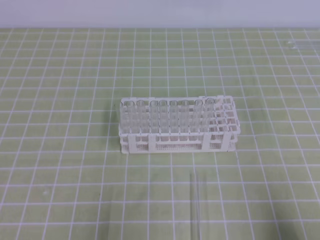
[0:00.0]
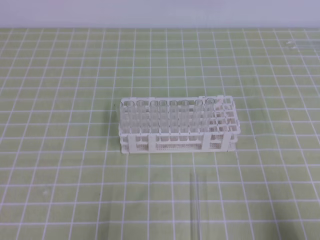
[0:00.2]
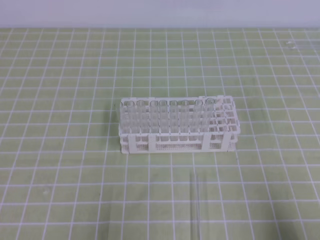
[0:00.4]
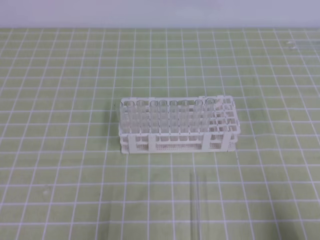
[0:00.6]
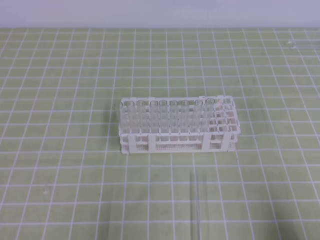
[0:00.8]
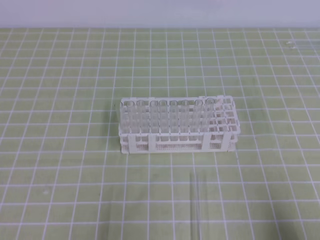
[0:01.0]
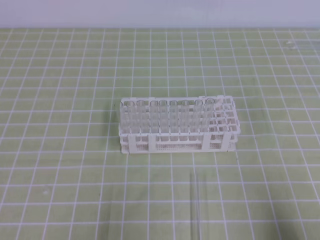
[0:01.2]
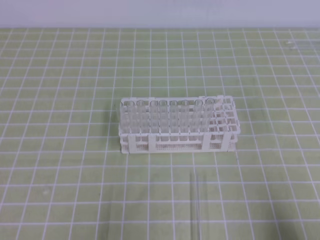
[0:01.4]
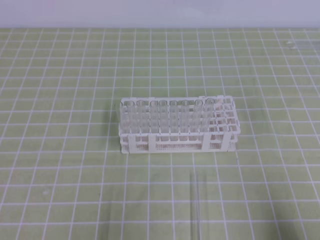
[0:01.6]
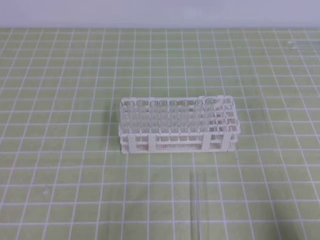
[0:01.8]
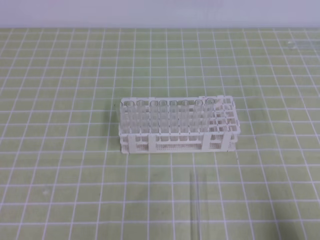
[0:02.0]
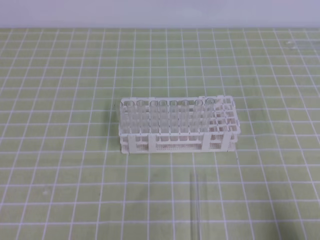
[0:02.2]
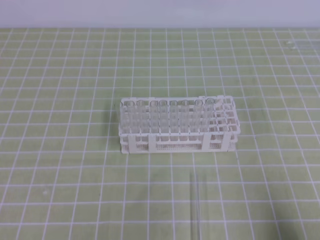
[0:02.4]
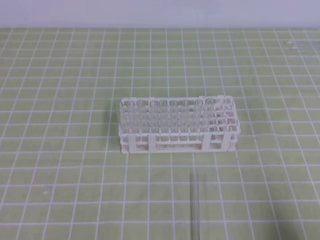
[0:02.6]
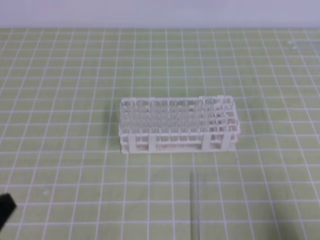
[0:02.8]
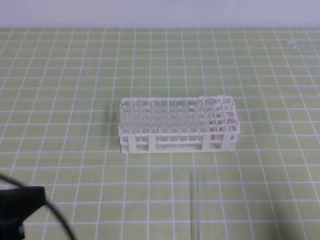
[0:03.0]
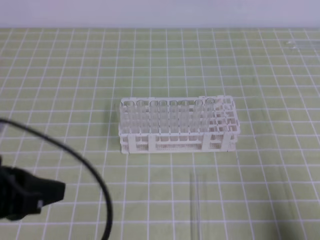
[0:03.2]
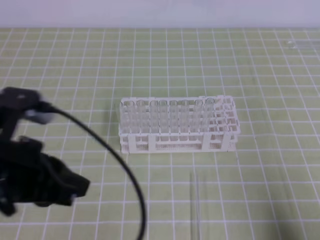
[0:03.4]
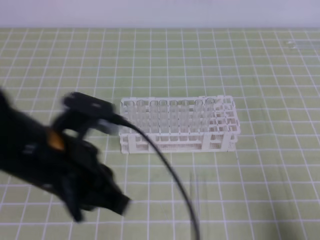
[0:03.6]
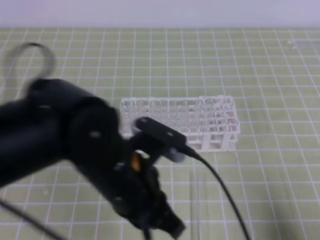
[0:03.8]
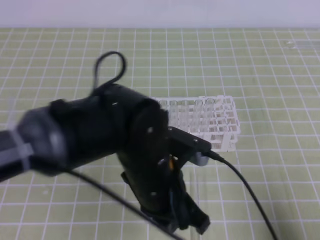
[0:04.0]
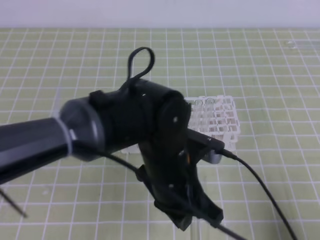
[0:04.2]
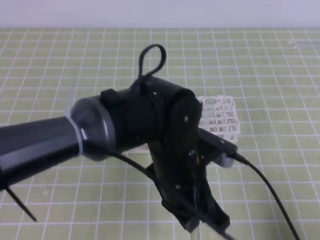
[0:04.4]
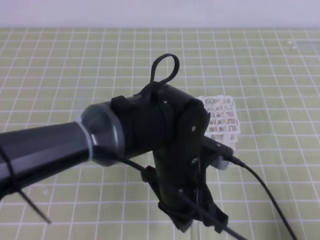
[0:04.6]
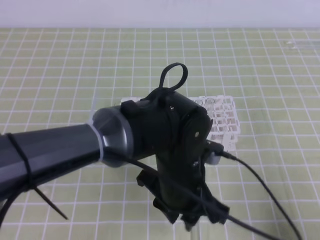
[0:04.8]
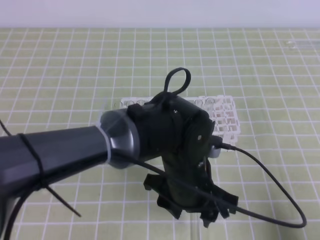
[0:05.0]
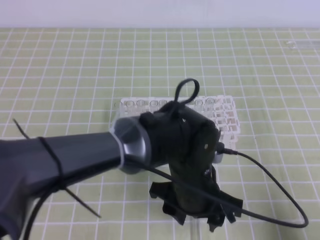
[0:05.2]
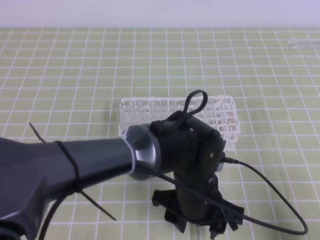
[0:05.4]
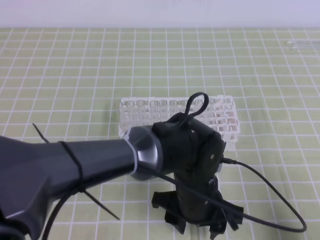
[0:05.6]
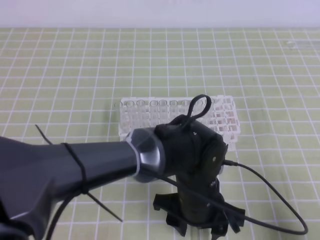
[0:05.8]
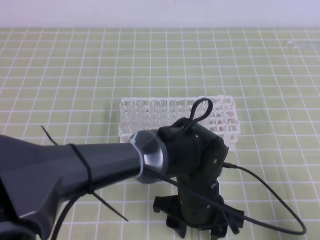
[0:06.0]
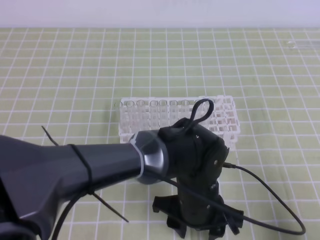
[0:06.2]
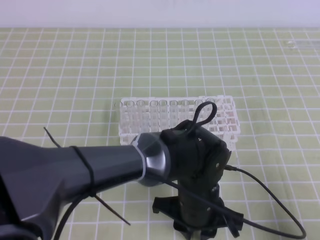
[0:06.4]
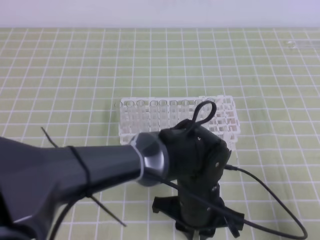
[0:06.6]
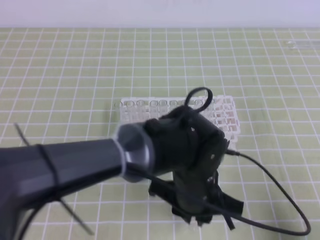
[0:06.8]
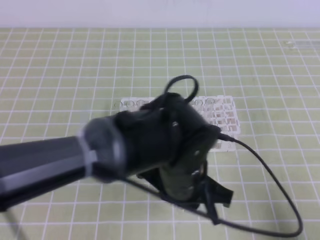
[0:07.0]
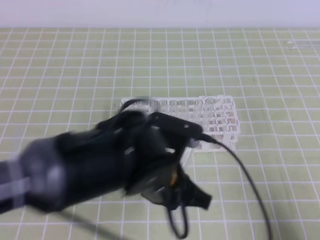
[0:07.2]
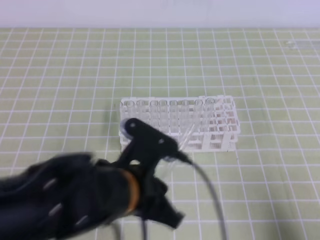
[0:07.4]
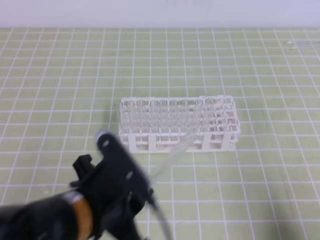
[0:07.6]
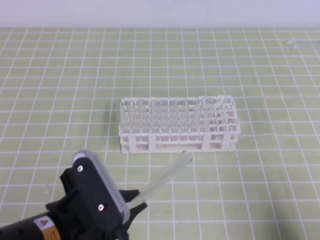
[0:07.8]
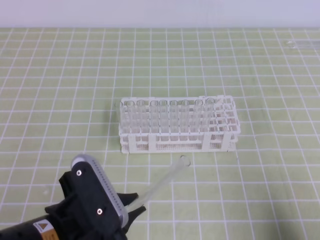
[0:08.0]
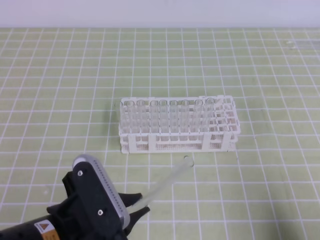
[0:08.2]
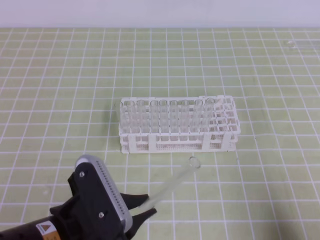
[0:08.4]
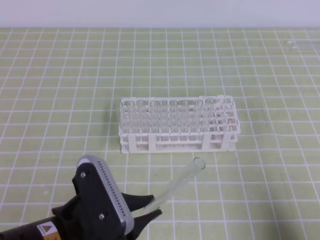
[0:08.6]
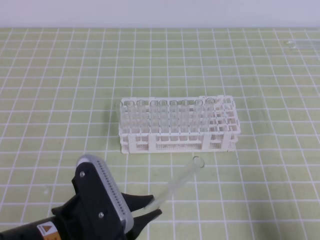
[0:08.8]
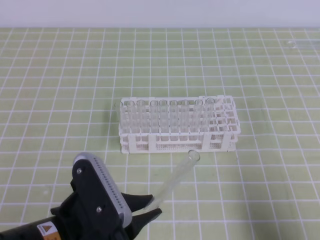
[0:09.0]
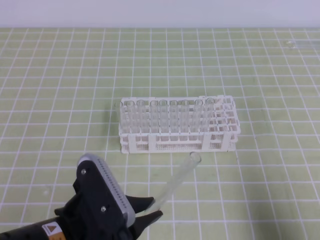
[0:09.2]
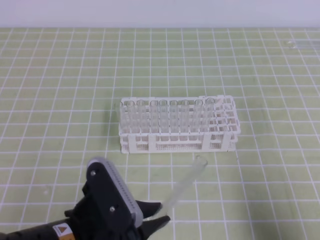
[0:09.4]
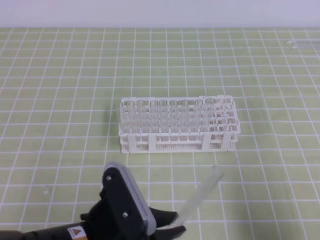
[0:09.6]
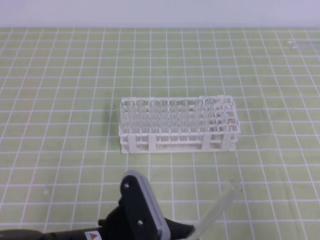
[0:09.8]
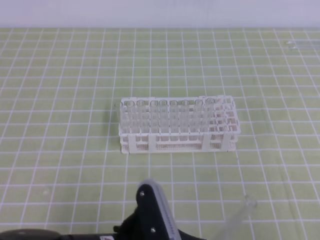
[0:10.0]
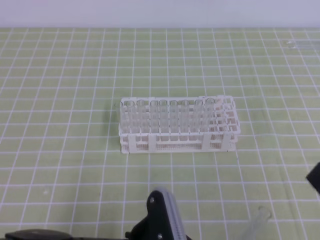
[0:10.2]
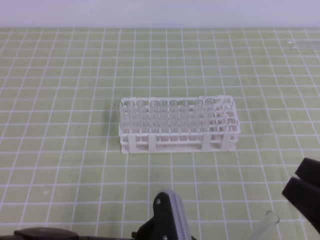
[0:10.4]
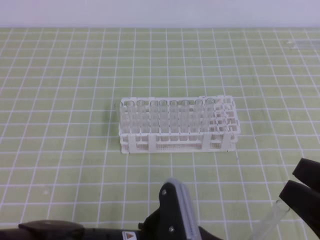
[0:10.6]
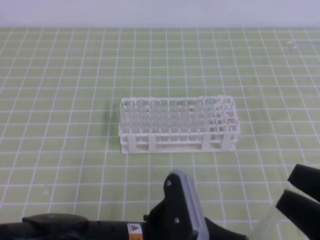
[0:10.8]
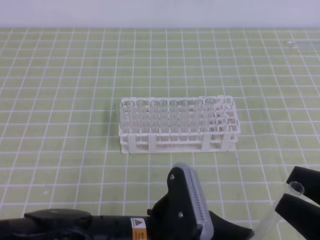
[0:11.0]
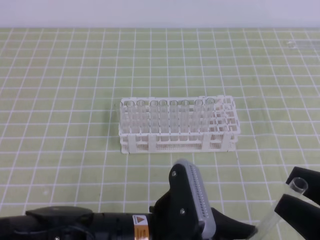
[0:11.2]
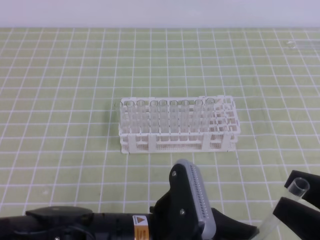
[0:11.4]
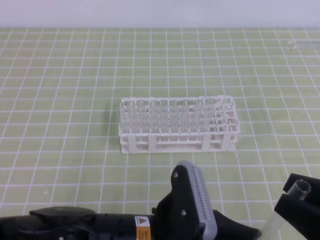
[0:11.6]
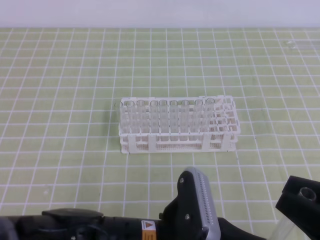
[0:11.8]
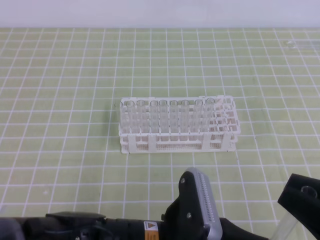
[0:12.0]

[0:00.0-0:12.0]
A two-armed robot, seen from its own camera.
0:01.6 to 0:03.0: The left gripper is displaced upward by approximately 10 cm.
0:03.0 to 0:04.4: The left gripper is displaced to the right and forward by about 25 cm.
0:04.4 to 0:06.0: The left gripper moves downward, approximately 10 cm, and opens.
0:06.0 to 0:07.6: The left gripper heads to the left, upward and backward, covering about 15 cm, and closes its fingers.
0:09.0 to 0:10.4: The right gripper goes approximately 10 cm upward and to the left, and opens its fingers. Meanwhile the left gripper is displaced to the right by about 5 cm.
0:10.4 to 0:12.0: The right gripper closes up.

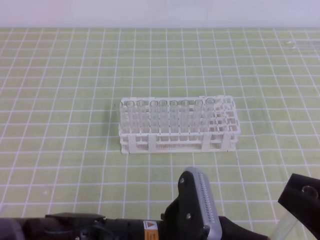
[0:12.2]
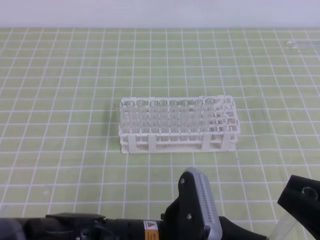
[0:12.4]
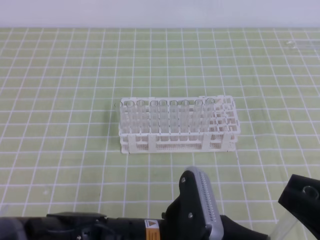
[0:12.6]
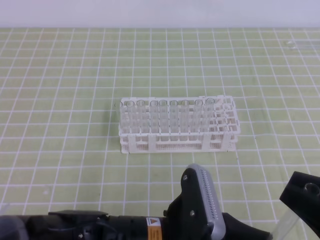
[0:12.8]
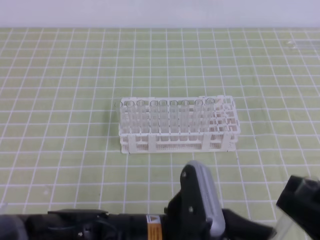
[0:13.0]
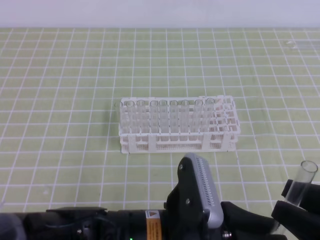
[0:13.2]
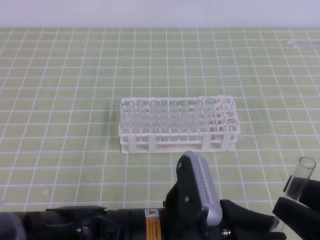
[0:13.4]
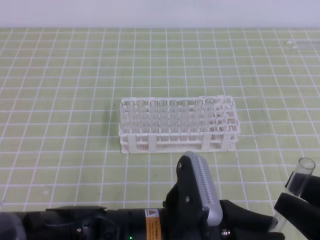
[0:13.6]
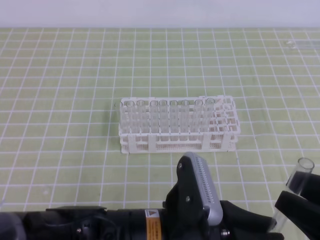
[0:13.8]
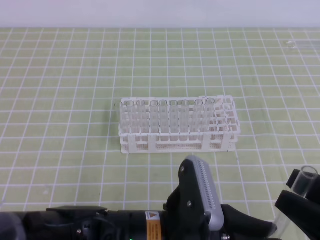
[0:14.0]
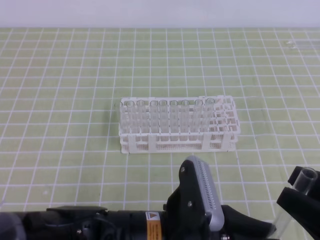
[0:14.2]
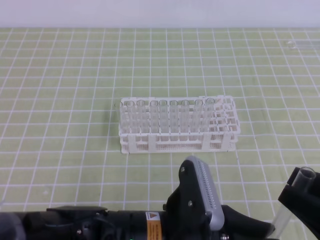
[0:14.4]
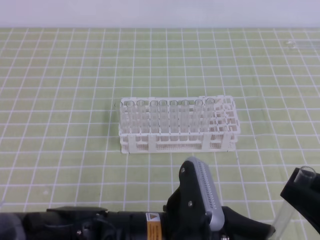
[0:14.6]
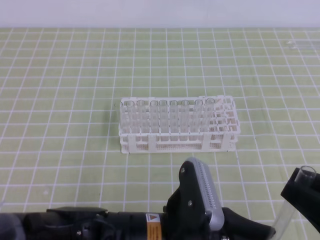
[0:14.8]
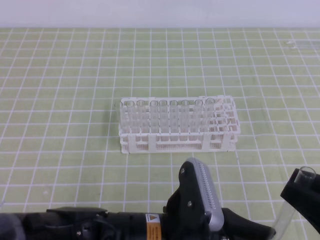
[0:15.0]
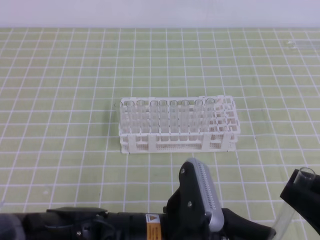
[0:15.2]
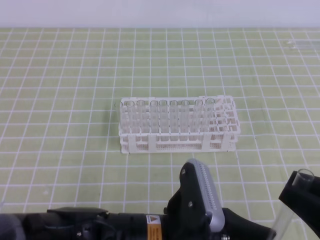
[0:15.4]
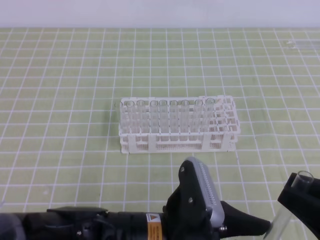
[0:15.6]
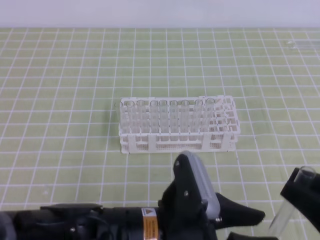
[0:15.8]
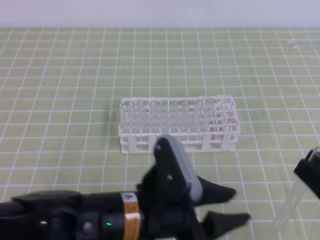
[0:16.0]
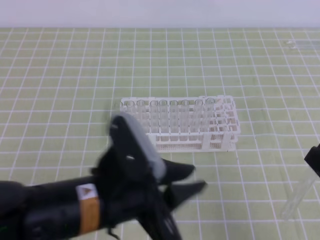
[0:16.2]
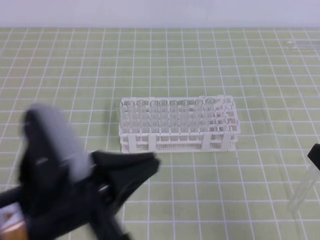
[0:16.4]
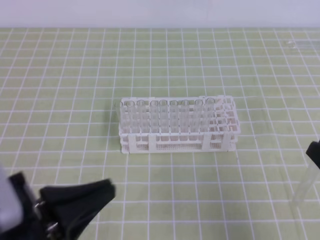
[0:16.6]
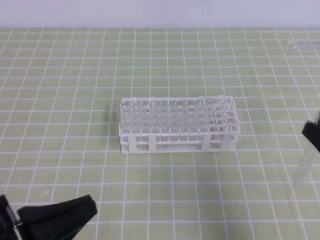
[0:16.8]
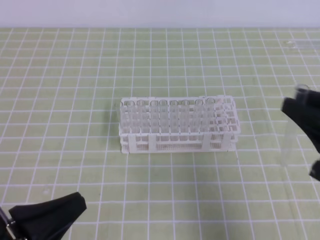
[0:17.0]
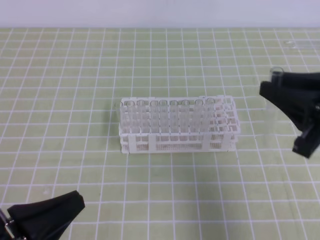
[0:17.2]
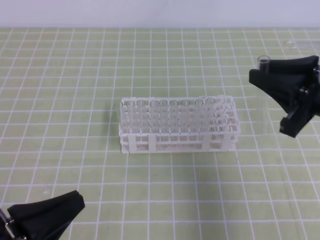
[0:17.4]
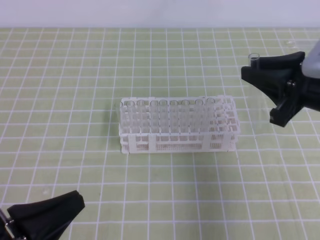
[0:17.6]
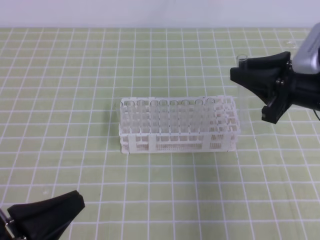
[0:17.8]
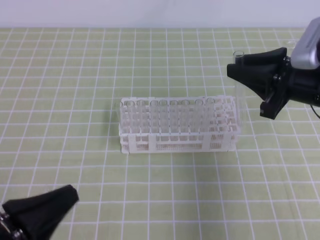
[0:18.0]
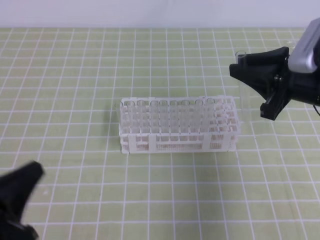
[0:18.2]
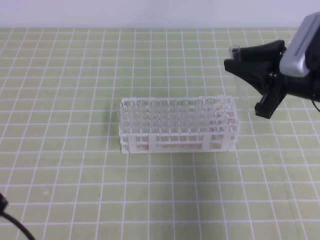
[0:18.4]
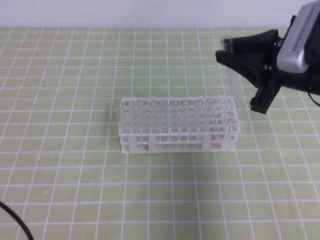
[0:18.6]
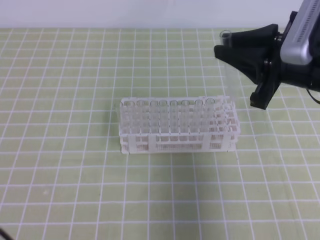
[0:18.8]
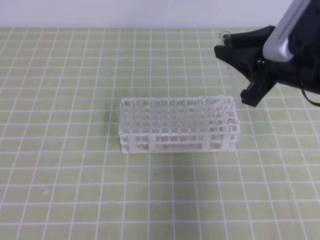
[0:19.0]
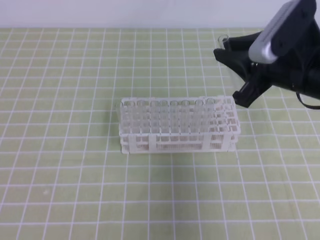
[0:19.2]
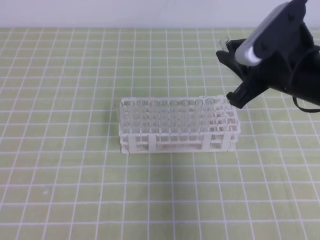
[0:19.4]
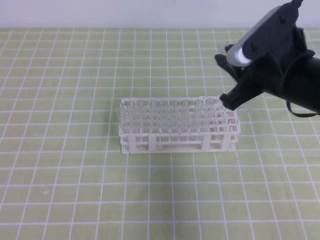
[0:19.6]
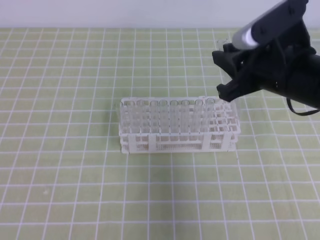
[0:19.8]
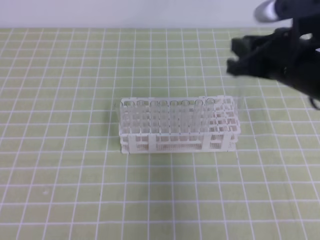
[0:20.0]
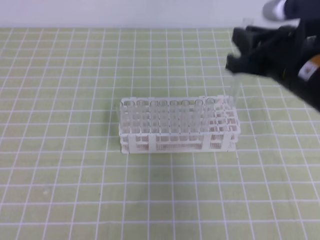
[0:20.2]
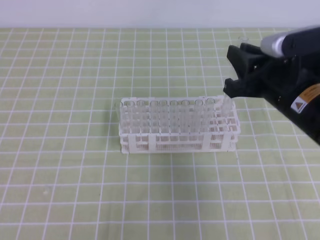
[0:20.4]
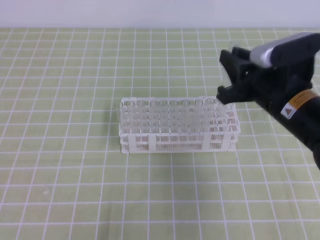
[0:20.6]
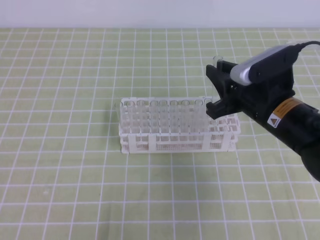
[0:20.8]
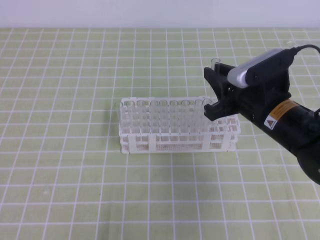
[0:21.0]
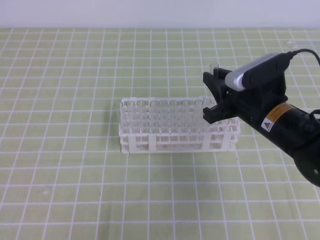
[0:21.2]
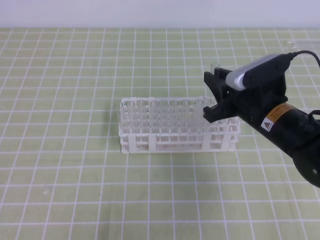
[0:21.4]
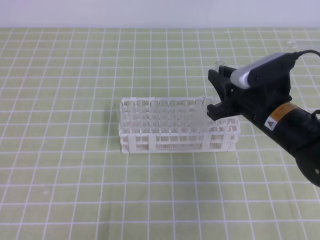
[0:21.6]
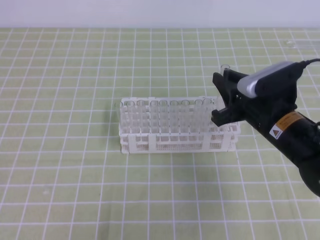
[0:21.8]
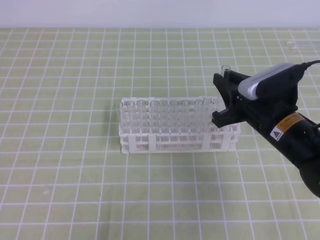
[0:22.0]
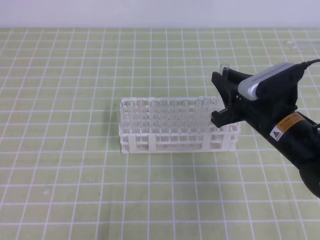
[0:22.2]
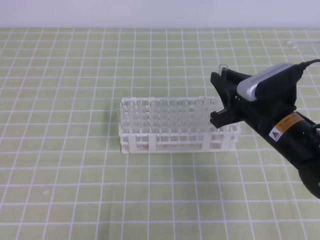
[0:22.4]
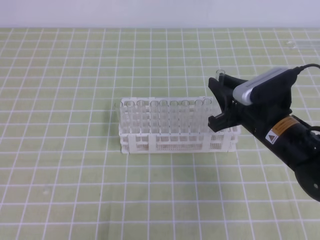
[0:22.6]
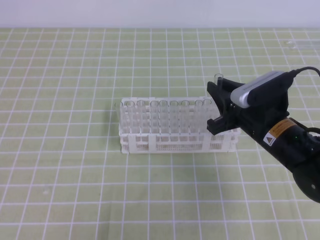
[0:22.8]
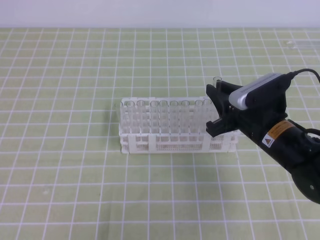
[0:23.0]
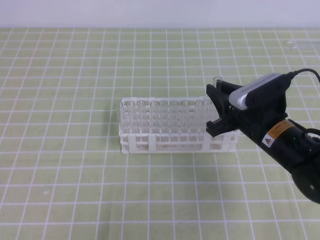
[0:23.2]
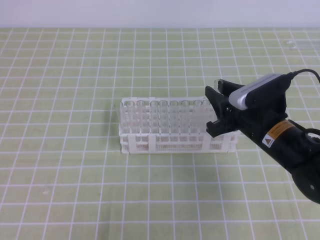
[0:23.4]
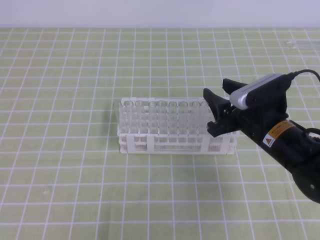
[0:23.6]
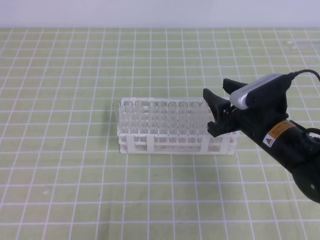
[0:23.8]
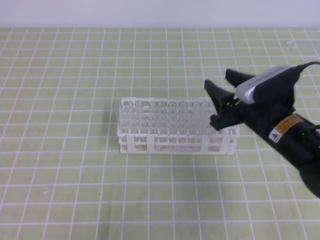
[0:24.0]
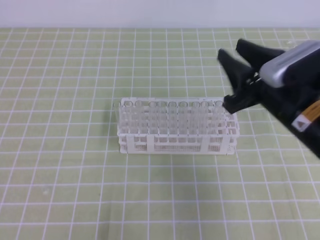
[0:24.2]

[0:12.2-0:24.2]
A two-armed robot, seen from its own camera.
0:12.2 to 0:13.8: The right gripper opens its fingers.
0:13.8 to 0:15.2: The right gripper closes its fingers.
0:15.2 to 0:16.6: The left gripper is displaced to the left by roughly 15 cm, and opens, then closes once more.
0:16.6 to 0:18.2: The right gripper is displaced forward by about 20 cm; the left gripper is displaced to the left by roughly 5 cm.
0:18.2 to 0:19.8: The left gripper moves approximately 5 cm, while the right gripper moves about 5 cm.
0:19.8 to 0:21.2: The right gripper travels downward by approximately 10 cm.
0:21.2 to 0:22.6: There are only small adjustments of the grippers.
0:22.6 to 0:24.2: The right gripper goes approximately 5 cm upward.
